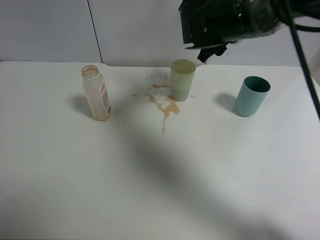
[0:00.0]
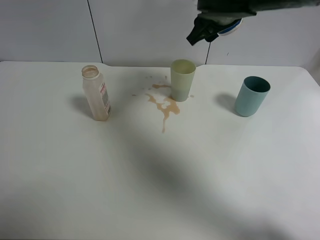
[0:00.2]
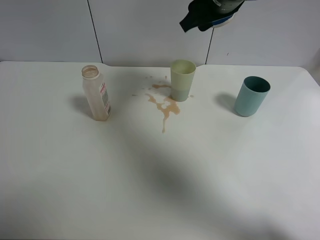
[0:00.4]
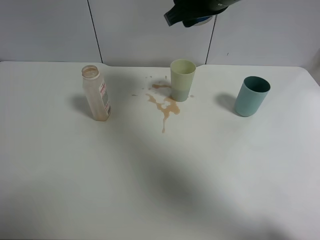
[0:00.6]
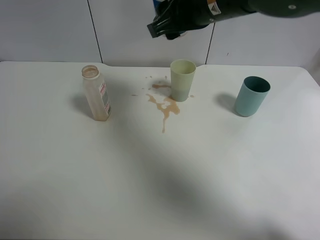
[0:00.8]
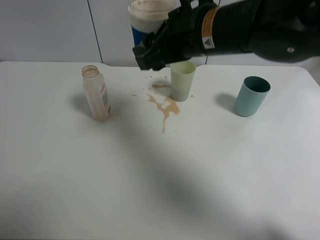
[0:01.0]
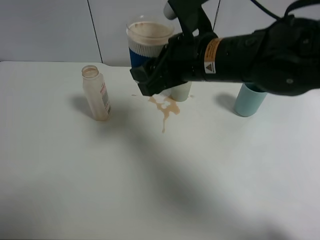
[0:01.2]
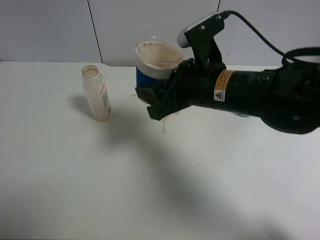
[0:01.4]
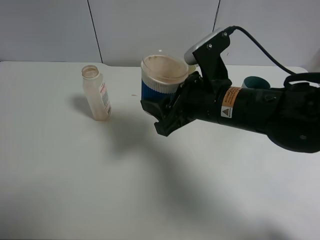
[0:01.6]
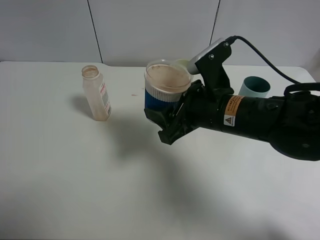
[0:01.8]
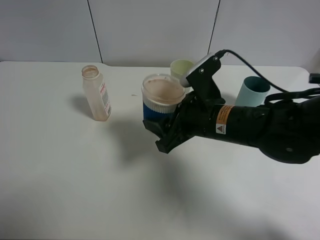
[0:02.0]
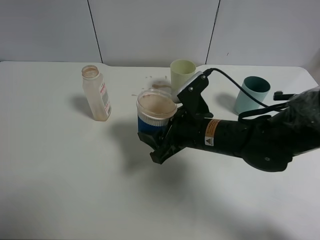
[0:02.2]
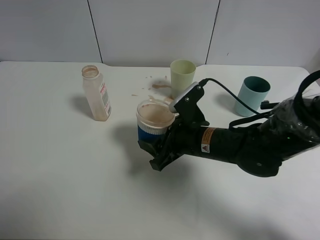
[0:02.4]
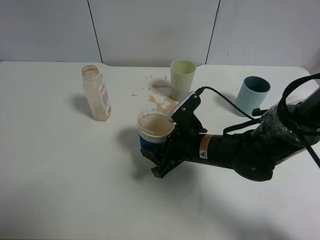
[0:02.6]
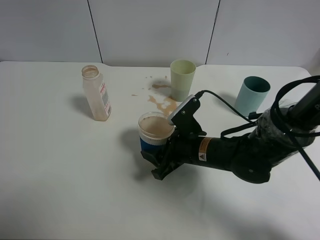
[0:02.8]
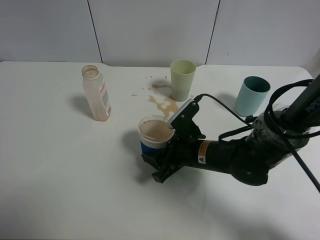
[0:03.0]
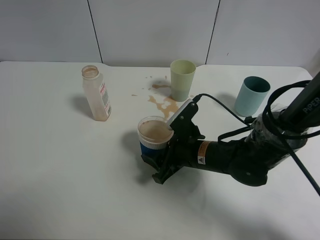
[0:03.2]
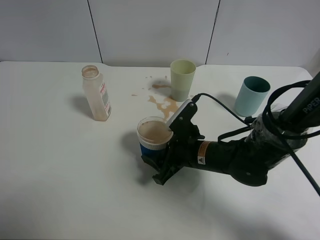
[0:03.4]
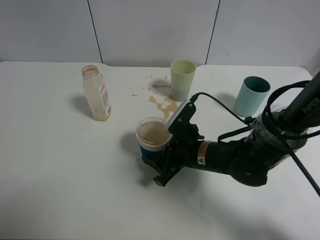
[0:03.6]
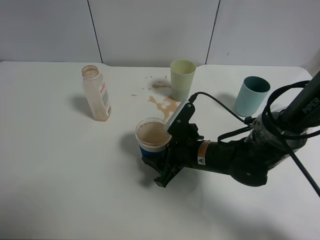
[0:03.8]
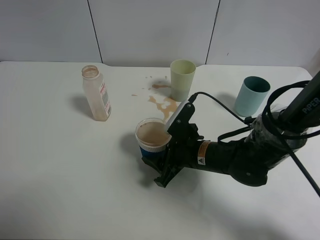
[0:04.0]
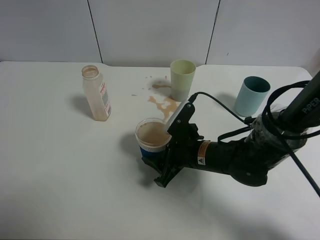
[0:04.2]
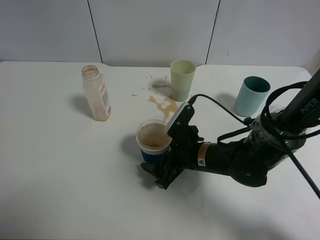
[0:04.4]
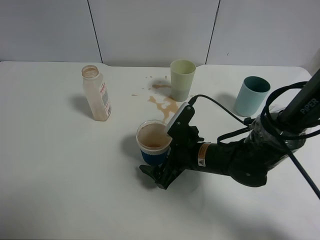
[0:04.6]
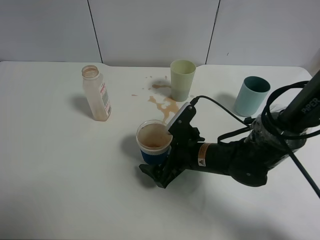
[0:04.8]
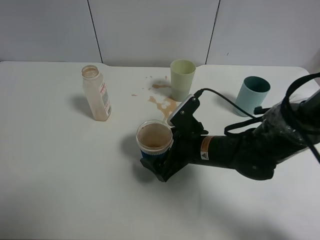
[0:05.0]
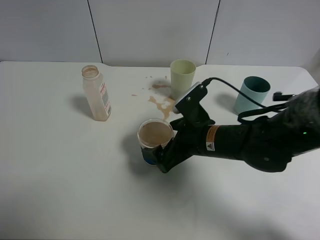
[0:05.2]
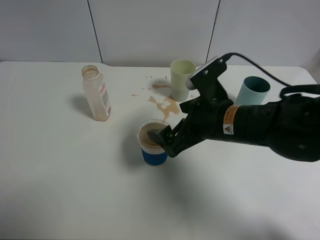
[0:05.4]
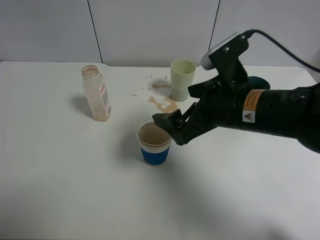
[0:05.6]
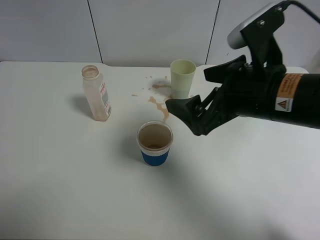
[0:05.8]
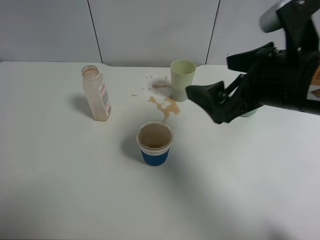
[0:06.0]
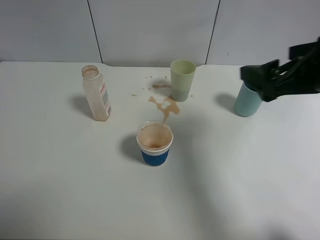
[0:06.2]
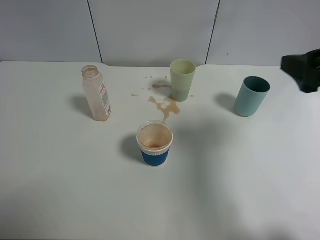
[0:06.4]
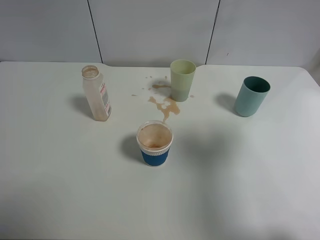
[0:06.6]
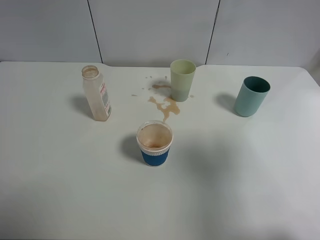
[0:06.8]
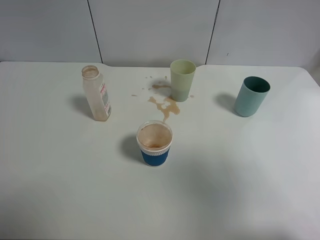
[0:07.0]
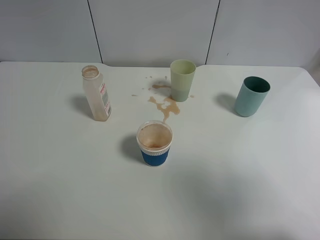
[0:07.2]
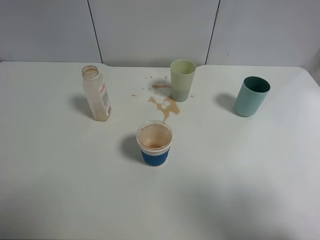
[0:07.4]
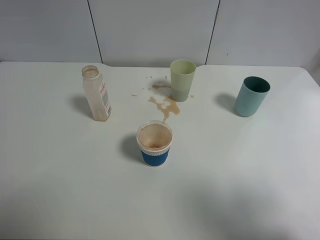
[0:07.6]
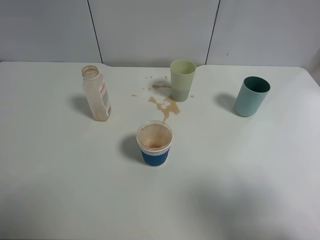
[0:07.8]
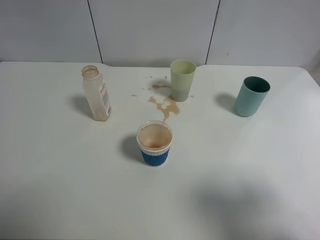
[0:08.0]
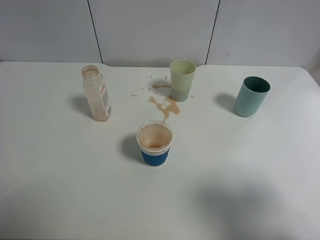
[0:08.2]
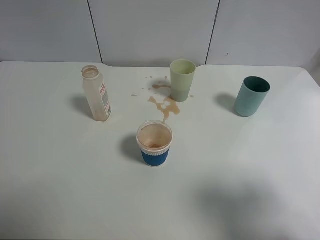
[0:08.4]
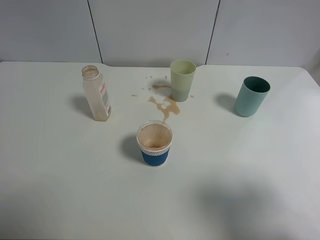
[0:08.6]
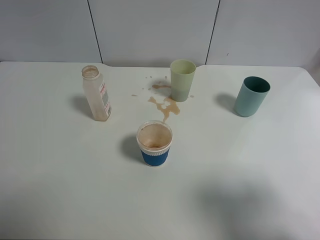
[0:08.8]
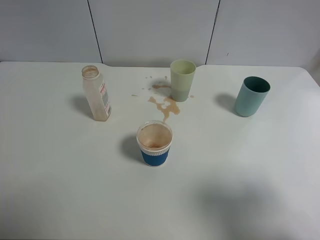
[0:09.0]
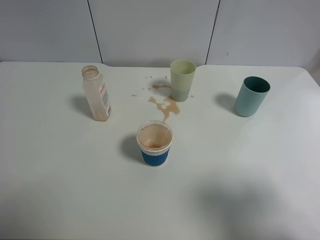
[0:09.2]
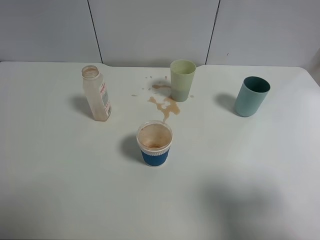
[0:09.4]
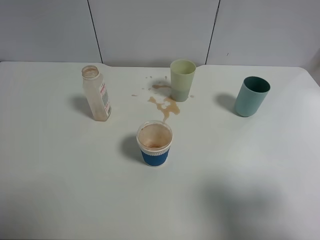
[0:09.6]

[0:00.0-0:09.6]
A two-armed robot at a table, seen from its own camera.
Task of the whole recording: use a clamp to hold the bottle of the drink, pour the beverage into a random cup, then clamp the cup containing the drink and pour the drink into another random cup.
Step, 0:00.0 to 0:04.8: Place the paper cup on the table with right gripper.
0:00.0 to 0:01.6: The right gripper travels backward by some 15 cm.
0:01.6 to 0:03.2: The right gripper is displaced downward by about 15 cm.
0:03.2 to 0:04.8: The right gripper opens up.
0:04.8 to 0:06.4: The right gripper moves upward and to the right, about 30 cm.
0:06.4 to 0:08.0: The right gripper goes approximately 15 cm backward.

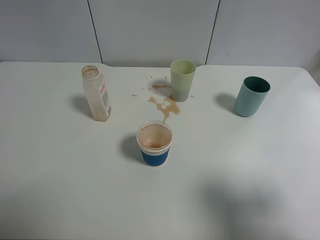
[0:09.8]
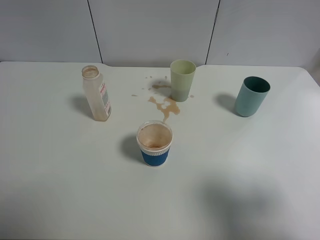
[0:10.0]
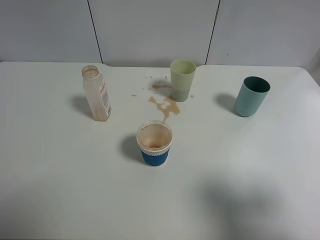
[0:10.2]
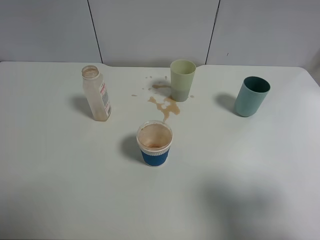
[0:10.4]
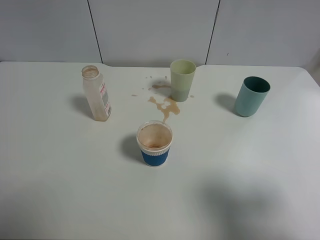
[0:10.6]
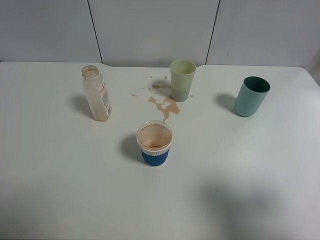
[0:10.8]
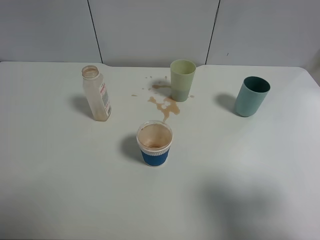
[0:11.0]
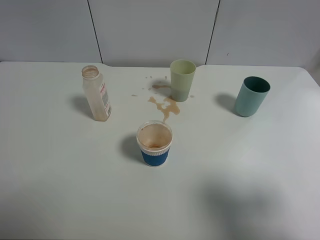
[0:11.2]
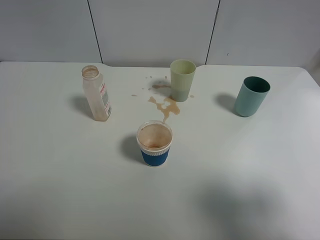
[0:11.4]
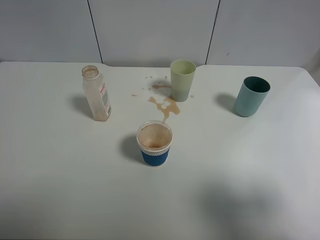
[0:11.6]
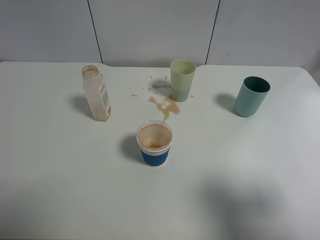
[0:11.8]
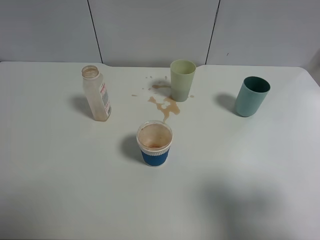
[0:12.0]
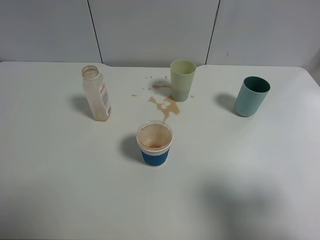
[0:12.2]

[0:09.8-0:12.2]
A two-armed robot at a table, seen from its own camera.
Task of the whole recording: use a clamp to hold the bottle of the drink, pour the beverage into a random cup, then clamp the cup containing the drink and pour the drink into another random cup.
0:09.8 to 0:12.2: Both grippers stay put.
